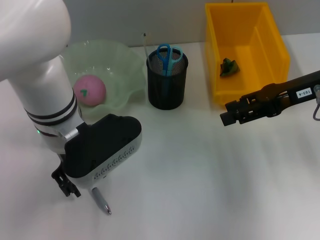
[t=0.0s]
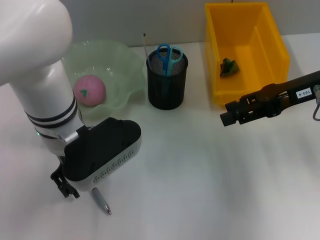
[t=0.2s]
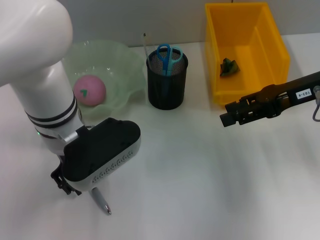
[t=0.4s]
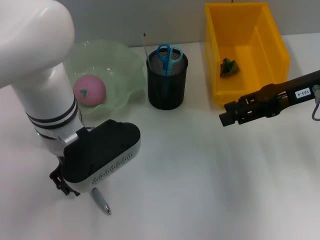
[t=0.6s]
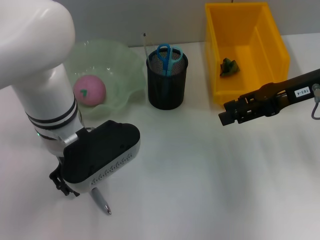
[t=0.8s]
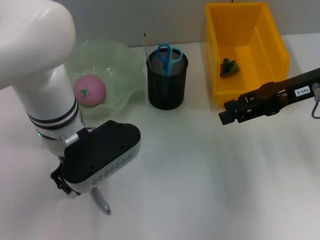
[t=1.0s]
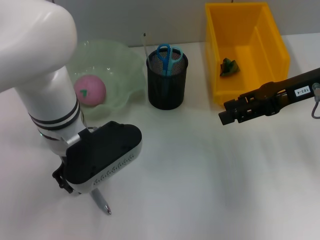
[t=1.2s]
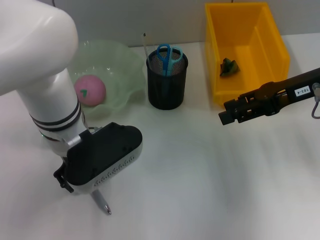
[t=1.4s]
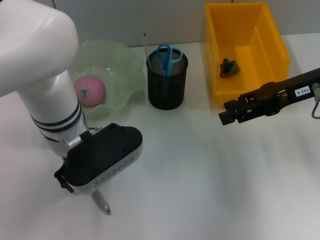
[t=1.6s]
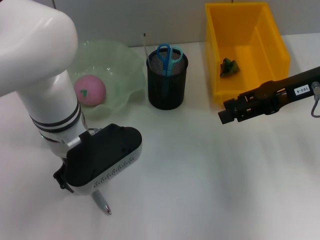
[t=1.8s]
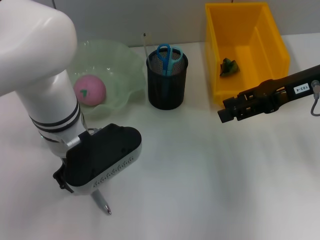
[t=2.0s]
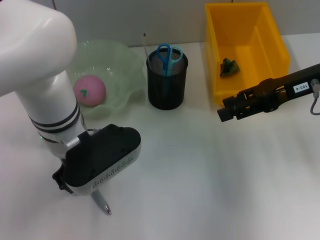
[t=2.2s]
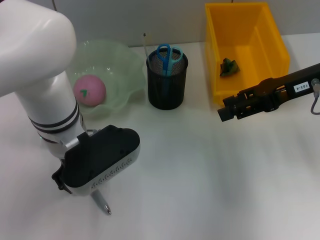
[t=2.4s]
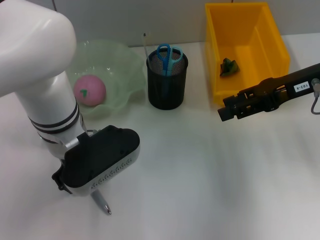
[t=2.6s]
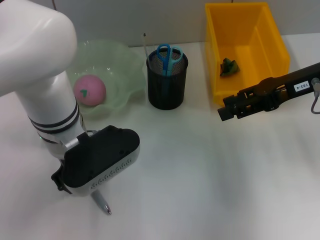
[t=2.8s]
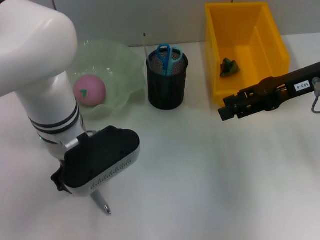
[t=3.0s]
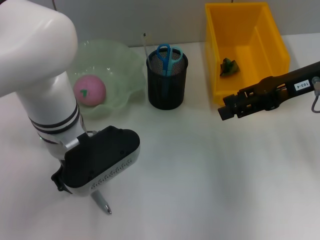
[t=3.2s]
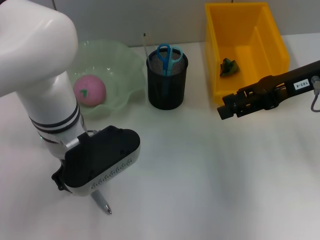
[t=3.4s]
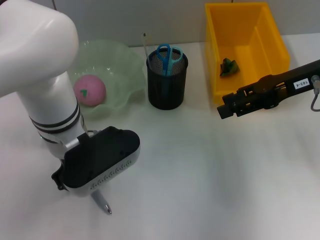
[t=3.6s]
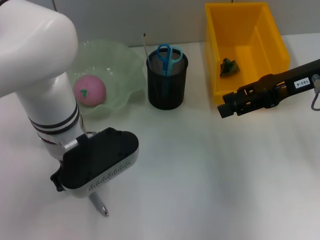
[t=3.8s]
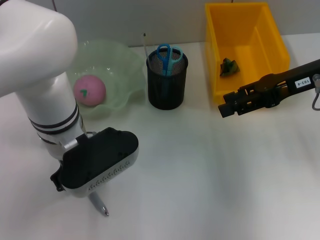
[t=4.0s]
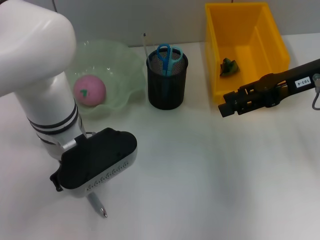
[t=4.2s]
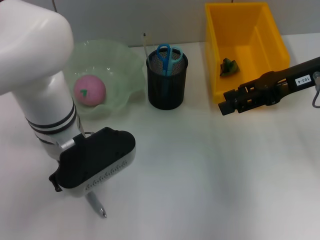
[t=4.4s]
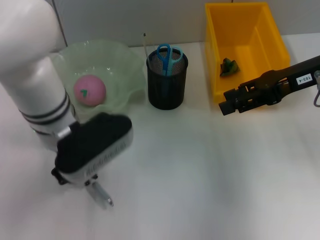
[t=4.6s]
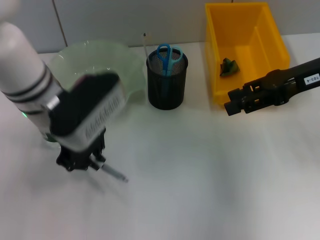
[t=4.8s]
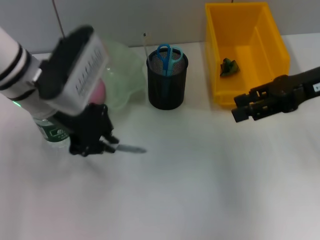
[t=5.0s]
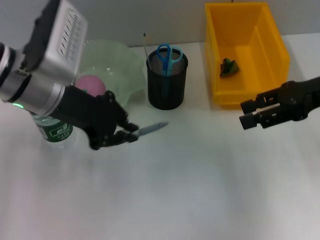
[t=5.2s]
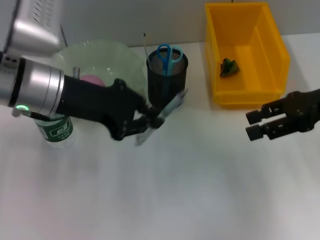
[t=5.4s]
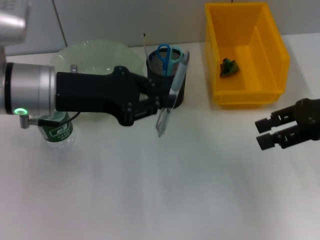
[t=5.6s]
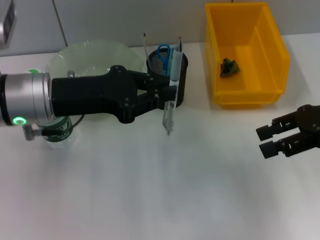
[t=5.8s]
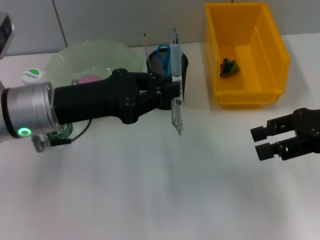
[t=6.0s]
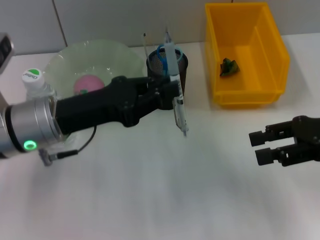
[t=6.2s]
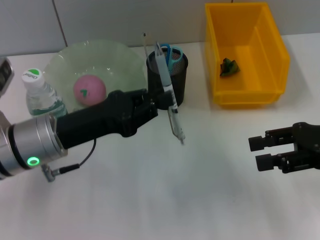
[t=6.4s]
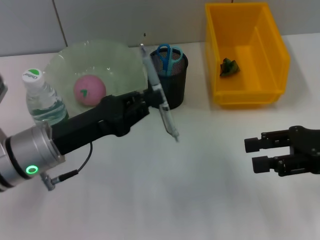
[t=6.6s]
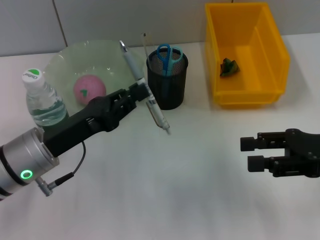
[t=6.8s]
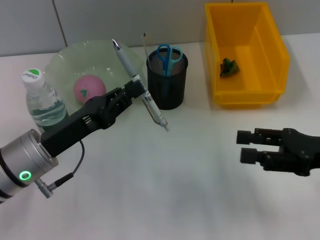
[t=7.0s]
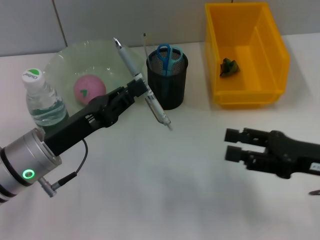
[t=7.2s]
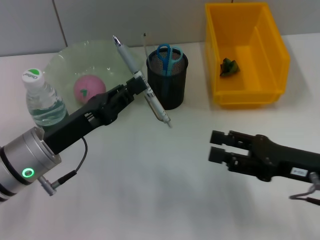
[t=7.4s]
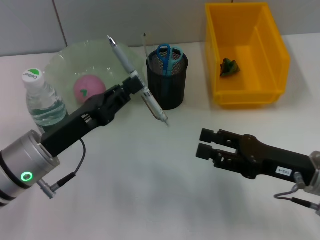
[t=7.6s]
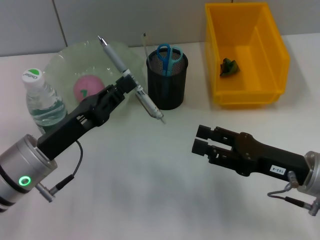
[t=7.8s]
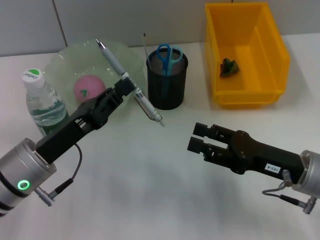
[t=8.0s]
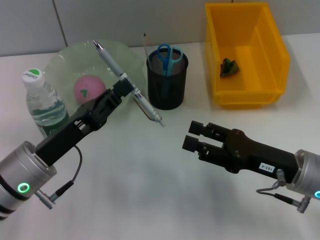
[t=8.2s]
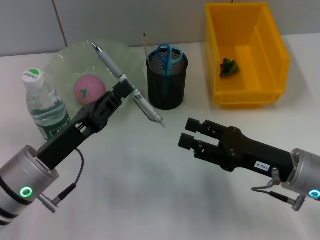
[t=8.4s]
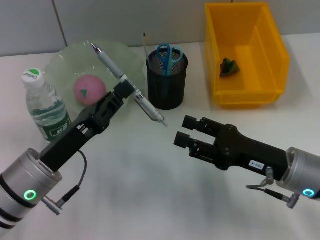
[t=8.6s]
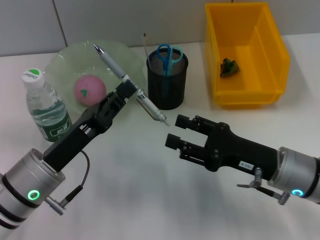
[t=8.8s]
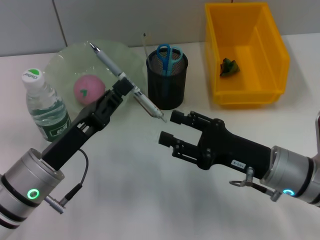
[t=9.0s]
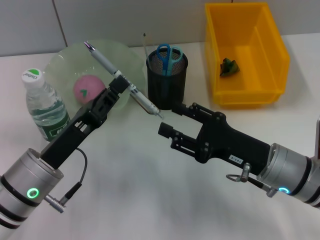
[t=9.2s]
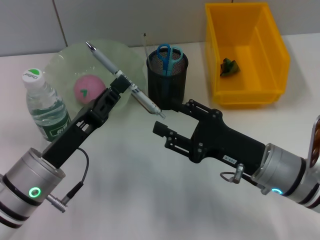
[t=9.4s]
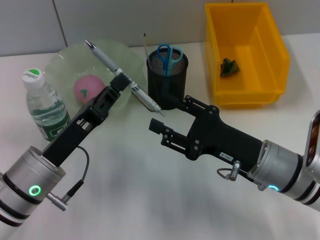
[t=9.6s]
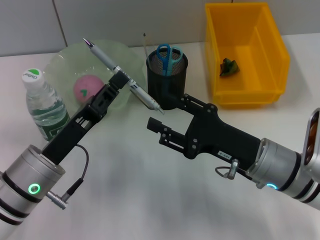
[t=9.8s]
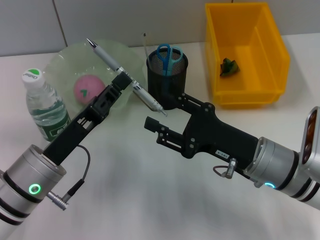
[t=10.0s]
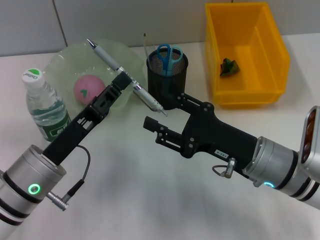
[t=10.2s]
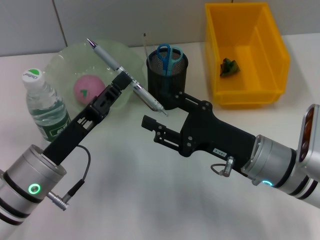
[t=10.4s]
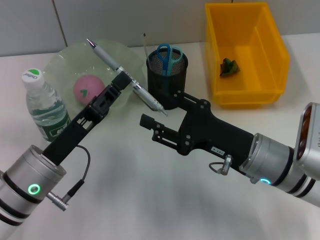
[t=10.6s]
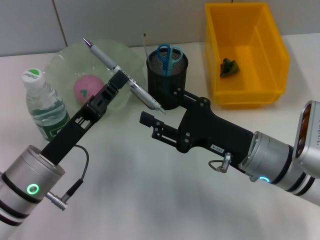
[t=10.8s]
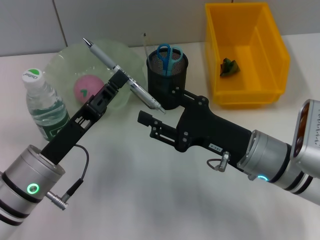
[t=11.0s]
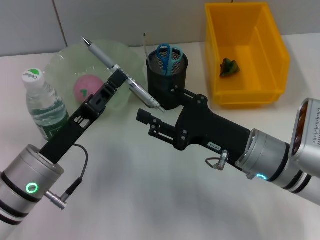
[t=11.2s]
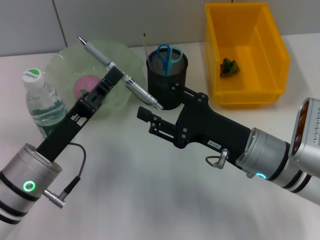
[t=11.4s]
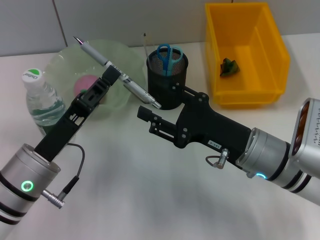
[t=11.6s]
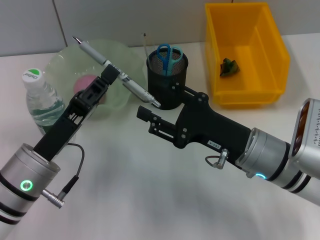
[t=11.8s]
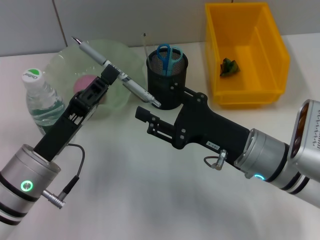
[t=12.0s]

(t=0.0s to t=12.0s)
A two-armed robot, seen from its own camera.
Step, t=0.0s - t=3.8s: Grab the gray spring-action pen with the left hand.
t=0.0s - t=1.6s: The left gripper closes up.
t=1.6s - t=3.0s: Neither gripper changes place.
t=3.0s - t=4.4s: Both grippers stay about where they are.
t=4.4s - t=6.0s: The left gripper heads to the left, covering about 5 cm, while the right gripper heads backward, covering approximately 5 cm.
t=6.0s - t=7.6s: The left gripper shifts approximately 5 cm downward; the right gripper heads downward, to the left and backward, covering roughly 15 cm.
t=7.6s - t=9.0s: The right gripper moves to the left, approximately 5 cm.
t=9.0s - t=12.0s: There are only small adjustments of the grippers.

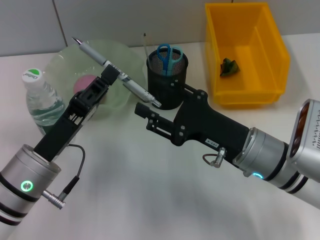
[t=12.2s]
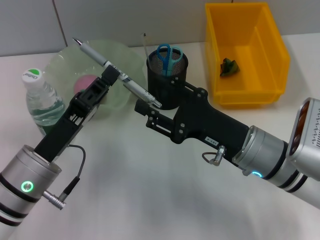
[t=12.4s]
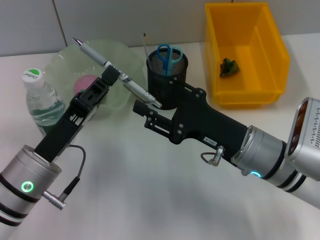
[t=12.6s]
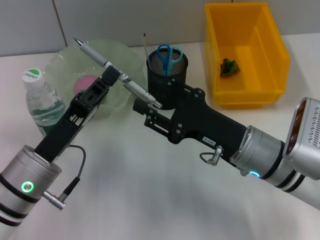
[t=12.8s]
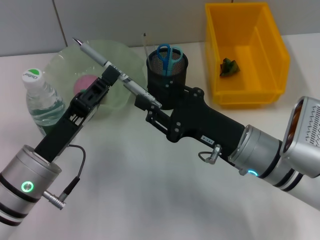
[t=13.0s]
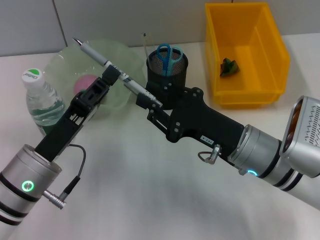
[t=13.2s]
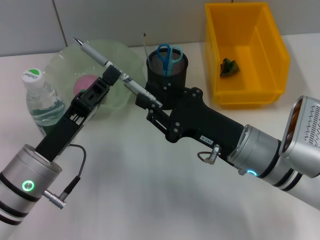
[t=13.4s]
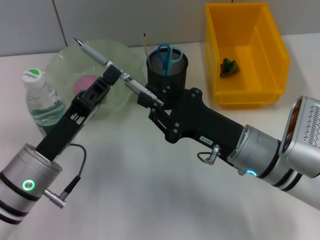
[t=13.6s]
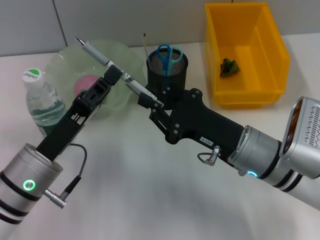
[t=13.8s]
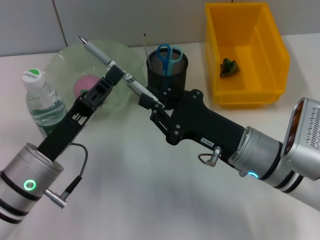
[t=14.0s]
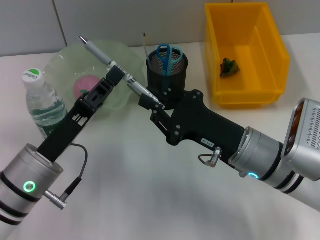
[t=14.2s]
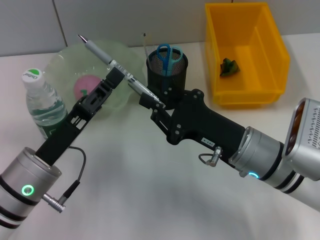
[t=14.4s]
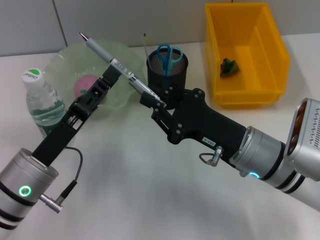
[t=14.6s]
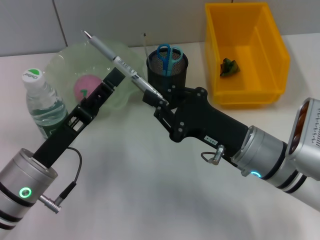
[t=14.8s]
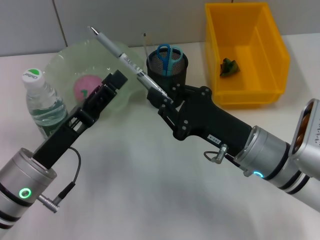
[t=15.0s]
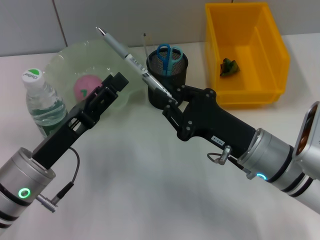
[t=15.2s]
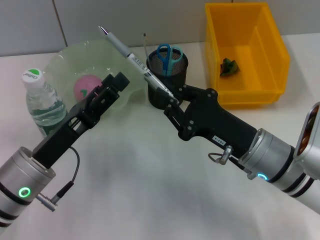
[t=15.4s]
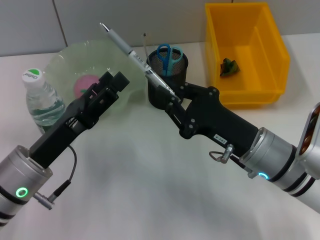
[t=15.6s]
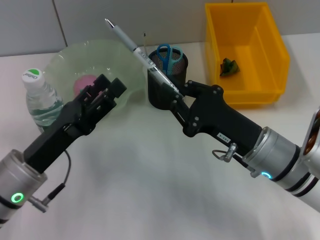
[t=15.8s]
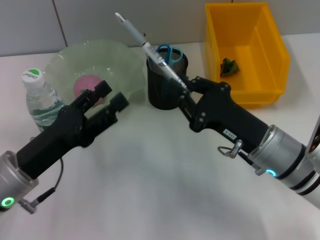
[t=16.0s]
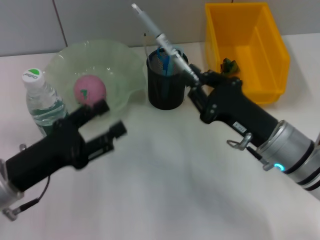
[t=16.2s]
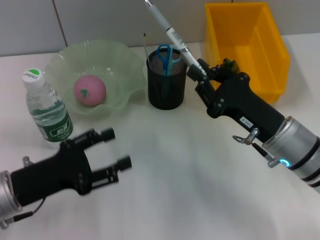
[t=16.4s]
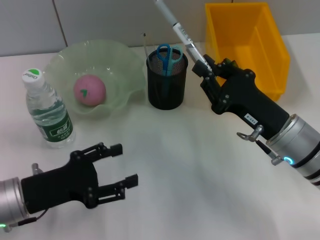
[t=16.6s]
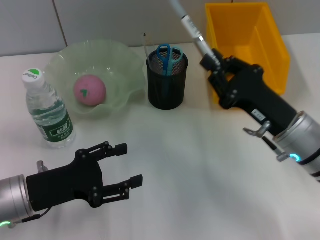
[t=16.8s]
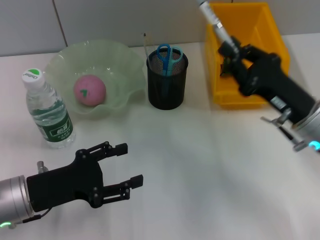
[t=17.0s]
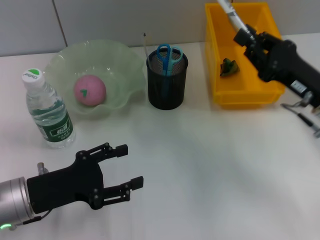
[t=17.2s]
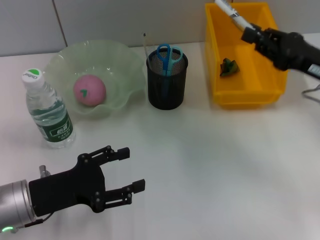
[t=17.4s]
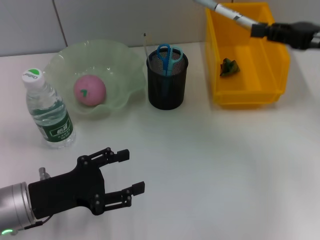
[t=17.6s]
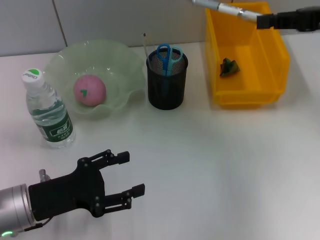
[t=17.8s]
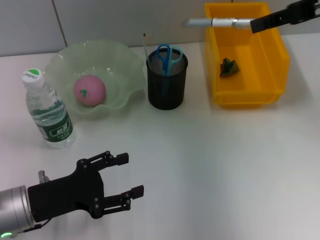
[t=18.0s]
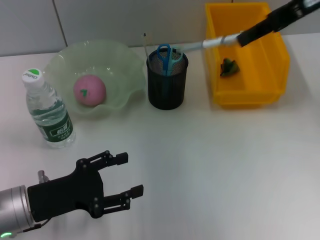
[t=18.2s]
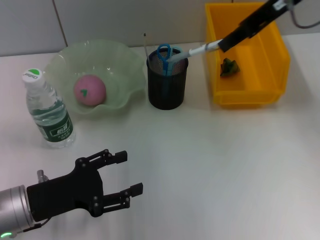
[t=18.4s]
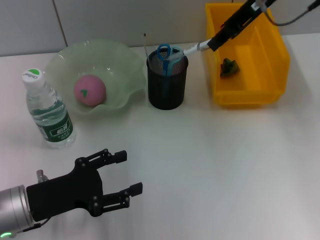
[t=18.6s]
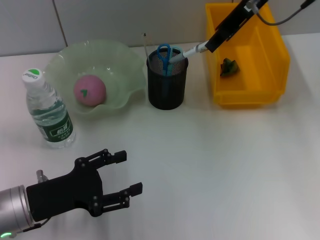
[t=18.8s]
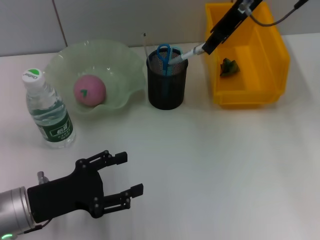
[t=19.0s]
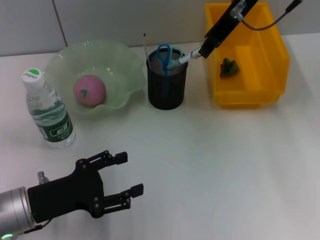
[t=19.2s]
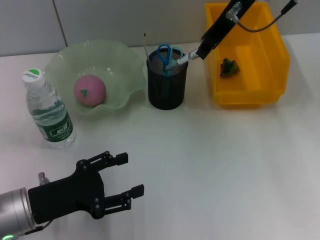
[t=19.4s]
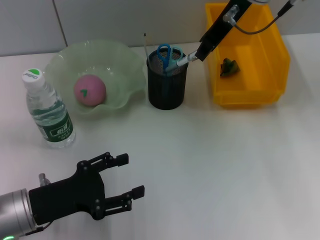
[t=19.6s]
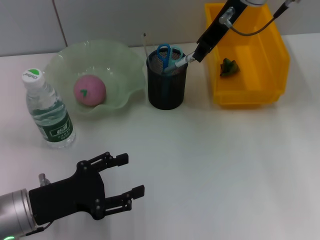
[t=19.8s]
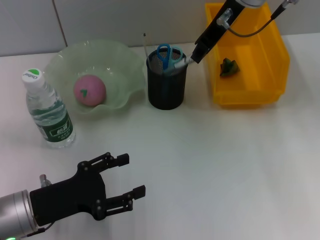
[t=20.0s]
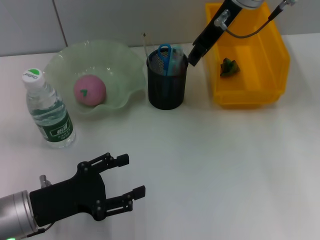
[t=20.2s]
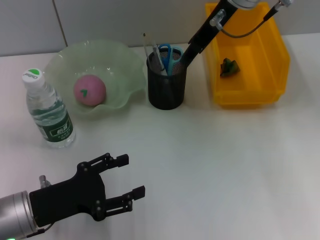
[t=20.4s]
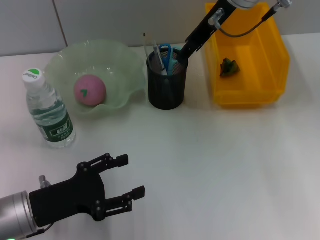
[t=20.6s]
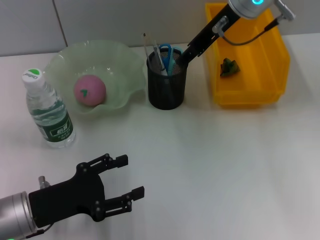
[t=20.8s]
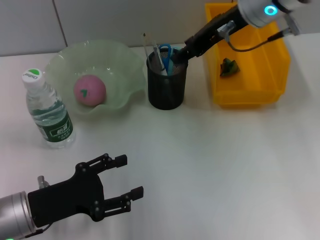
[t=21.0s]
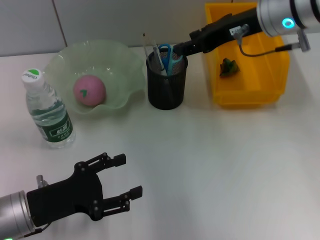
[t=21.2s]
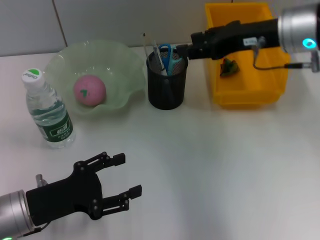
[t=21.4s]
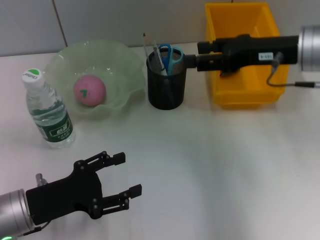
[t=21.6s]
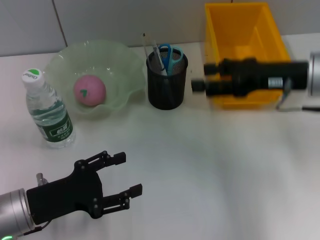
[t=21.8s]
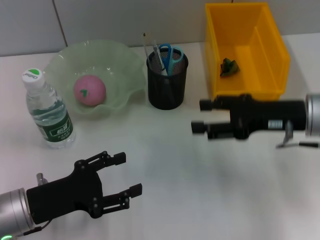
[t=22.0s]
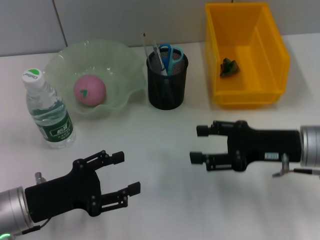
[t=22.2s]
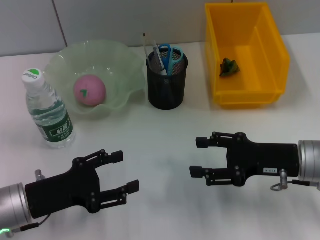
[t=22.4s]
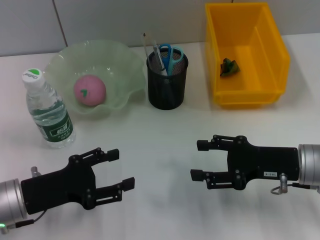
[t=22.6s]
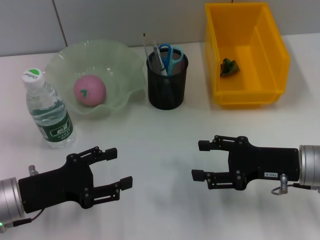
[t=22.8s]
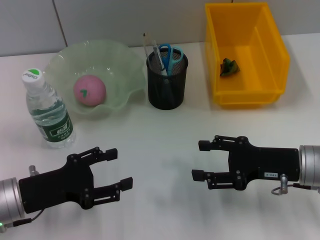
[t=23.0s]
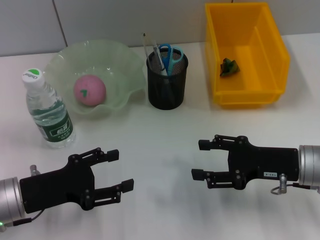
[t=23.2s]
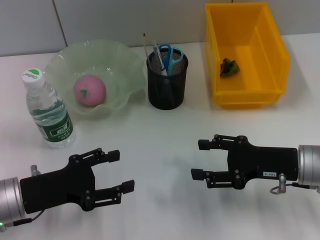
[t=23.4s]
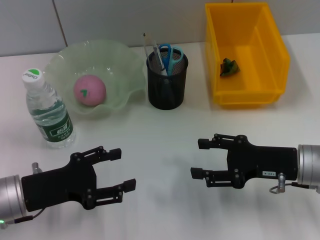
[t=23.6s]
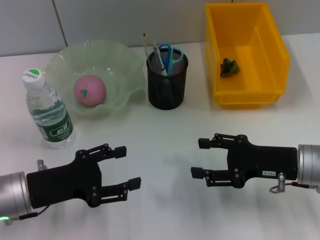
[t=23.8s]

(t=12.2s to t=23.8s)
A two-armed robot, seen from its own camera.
Step, t=12.2s - t=14.8s: Pass the gray spring-action pen from the left hand to the right hand.
Step, t=15.0s - t=20.6s: Place the gray spring-action pen into the pen holder with the right hand.
t=12.2s - t=13.6s: The right gripper closes its fingers.
t=13.6s - t=15.0s: The left gripper opens up.
t=16.6s - t=18.0s: The right gripper moves upward and forward, about 25 cm.
t=18.0s - t=19.4s: The right gripper heads to the left, covering roughly 15 cm.
t=19.4s - t=21.0s: The right gripper opens up.
t=21.0s - t=22.4s: The right gripper goes about 25 cm downward, backward and to the right.
t=22.4s - t=23.8s: The grippers make only small movements.
